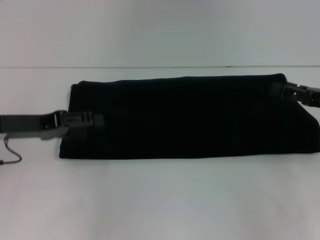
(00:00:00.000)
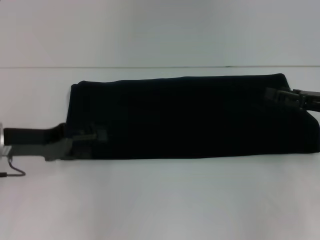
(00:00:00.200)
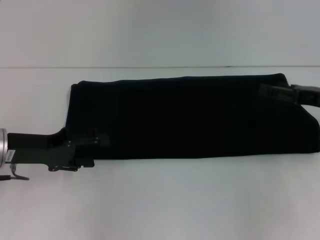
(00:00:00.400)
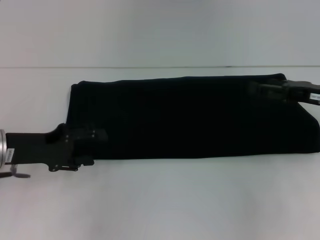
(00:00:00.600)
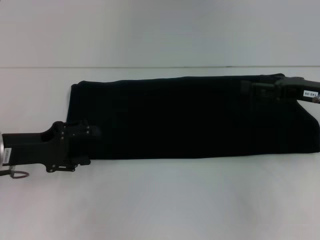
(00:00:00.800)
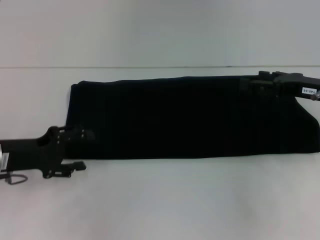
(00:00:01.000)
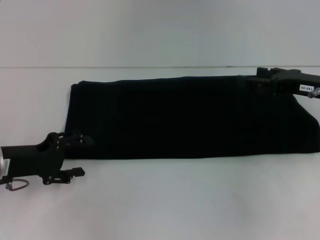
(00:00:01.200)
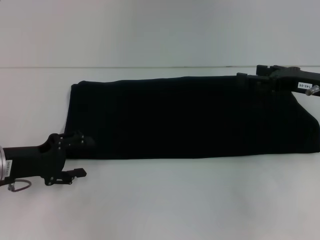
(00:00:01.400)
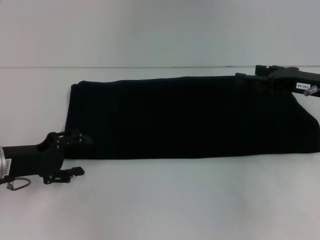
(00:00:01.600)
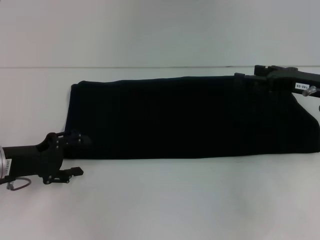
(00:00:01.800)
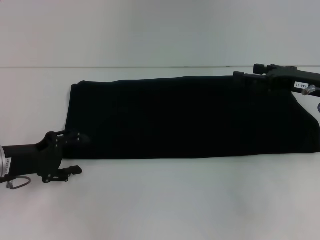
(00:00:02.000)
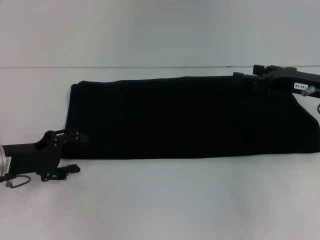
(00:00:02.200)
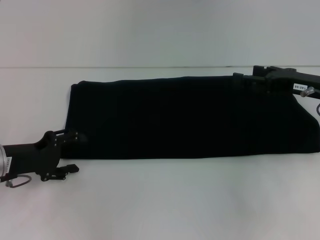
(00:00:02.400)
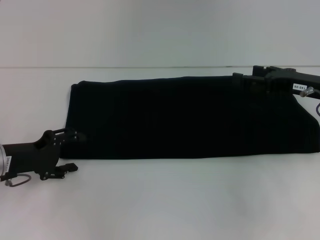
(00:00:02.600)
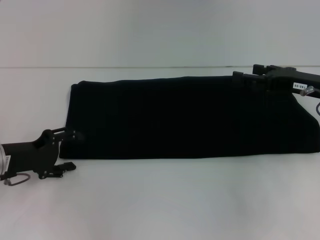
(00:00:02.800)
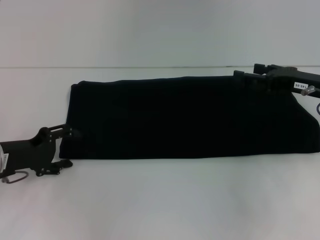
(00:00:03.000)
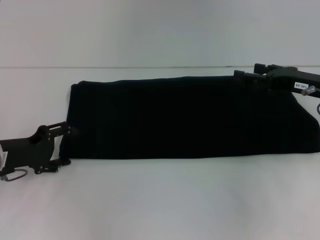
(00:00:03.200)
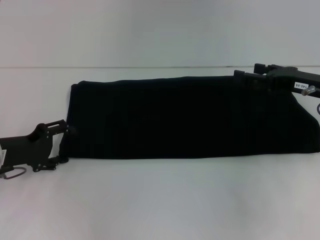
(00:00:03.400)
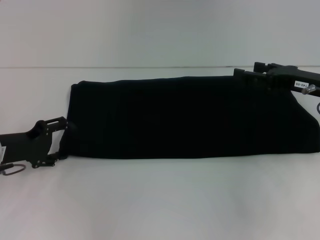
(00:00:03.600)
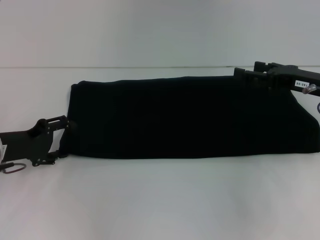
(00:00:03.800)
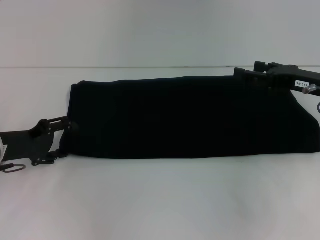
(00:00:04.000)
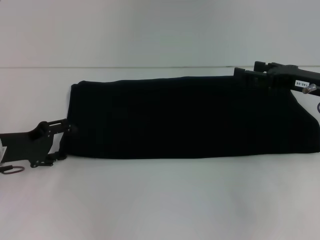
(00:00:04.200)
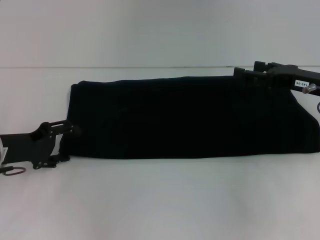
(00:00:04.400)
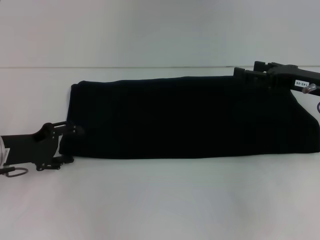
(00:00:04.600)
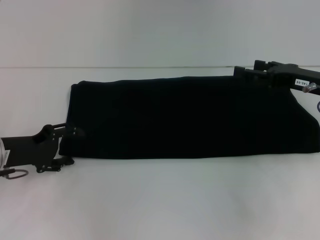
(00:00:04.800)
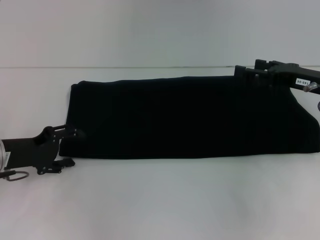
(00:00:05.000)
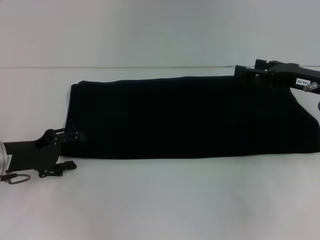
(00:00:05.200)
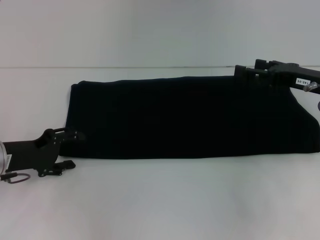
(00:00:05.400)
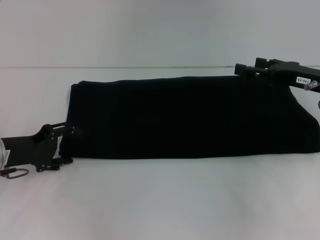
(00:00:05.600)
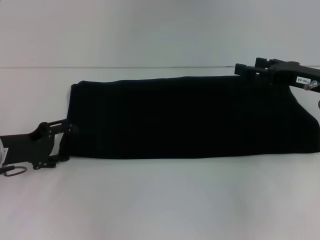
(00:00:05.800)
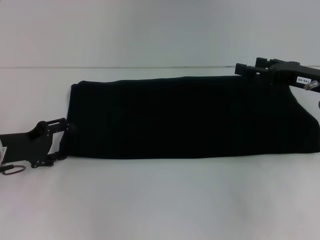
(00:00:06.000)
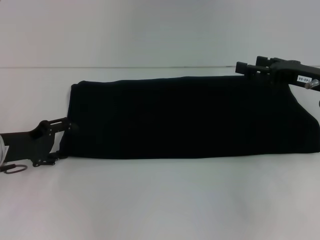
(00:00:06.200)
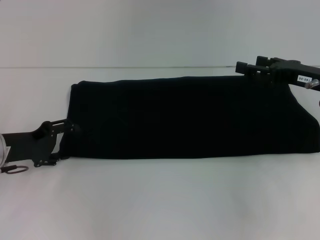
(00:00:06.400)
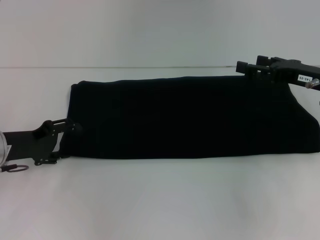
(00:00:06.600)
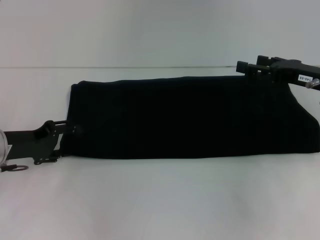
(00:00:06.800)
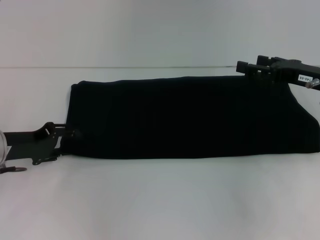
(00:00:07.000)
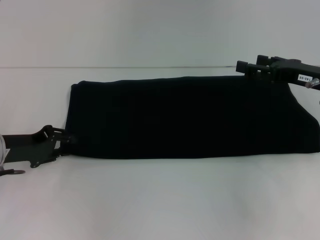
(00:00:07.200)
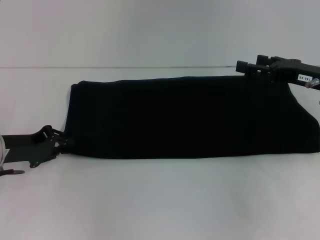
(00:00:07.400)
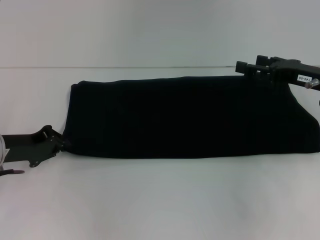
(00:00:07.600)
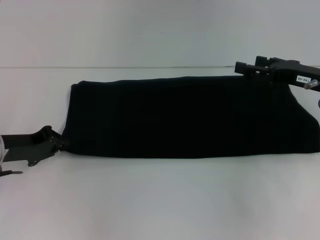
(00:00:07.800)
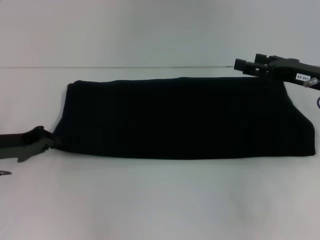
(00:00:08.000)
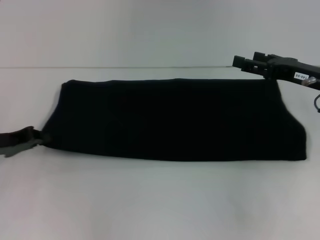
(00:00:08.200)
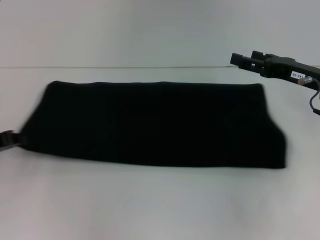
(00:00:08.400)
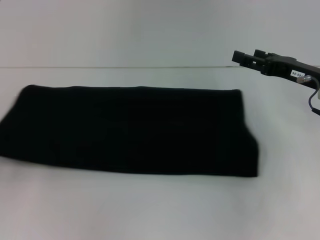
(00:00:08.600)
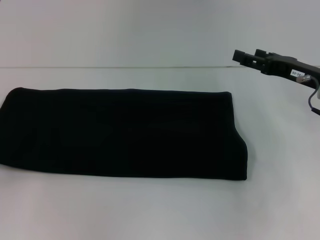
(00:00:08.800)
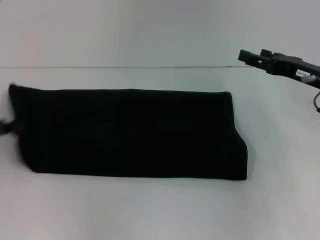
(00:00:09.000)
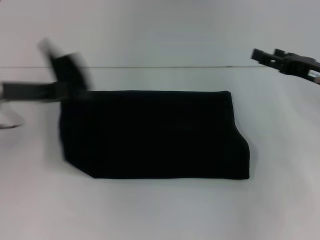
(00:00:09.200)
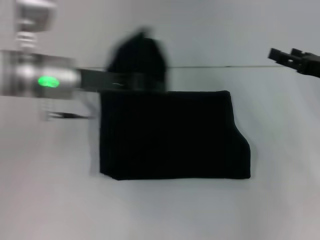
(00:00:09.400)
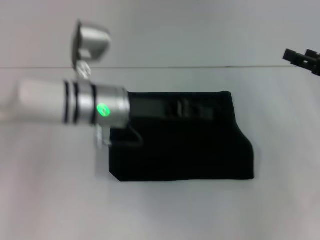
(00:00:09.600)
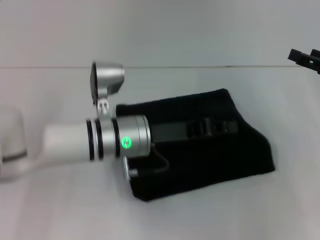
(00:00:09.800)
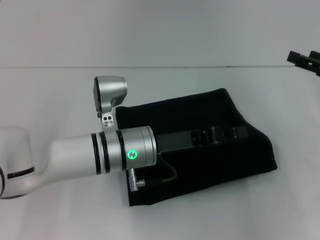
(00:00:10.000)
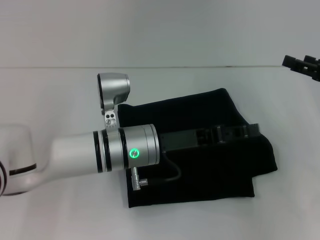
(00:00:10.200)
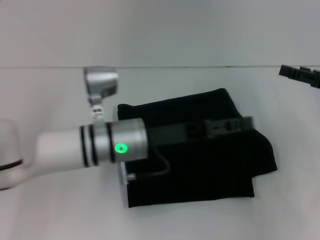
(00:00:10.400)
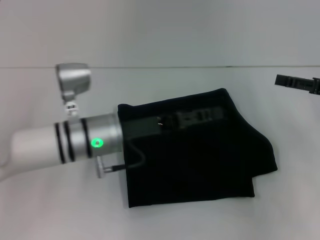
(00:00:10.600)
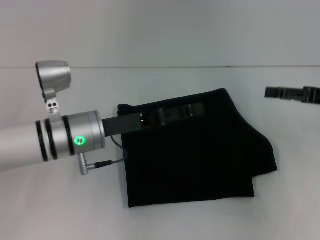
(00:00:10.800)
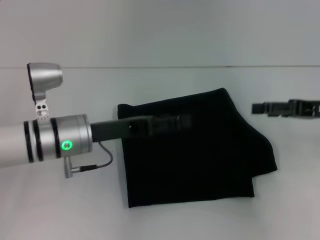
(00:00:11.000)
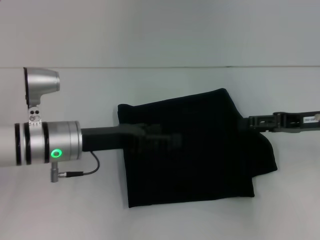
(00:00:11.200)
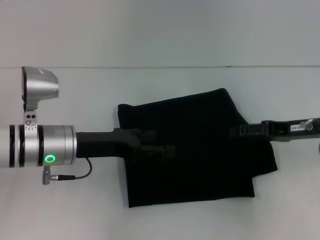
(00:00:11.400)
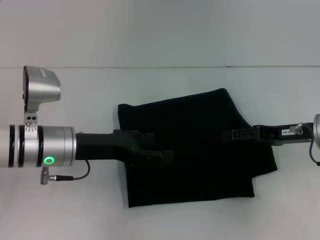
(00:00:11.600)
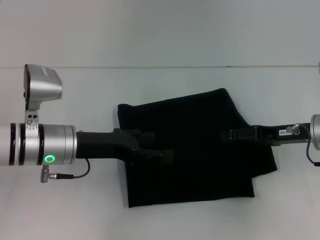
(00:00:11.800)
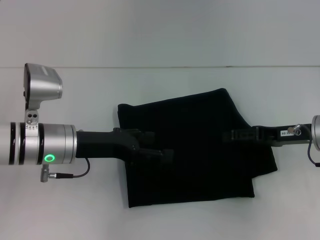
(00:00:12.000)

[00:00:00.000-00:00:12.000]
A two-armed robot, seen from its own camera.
Step, 00:00:00.000 to 00:00:10.600: Fold the clothes with your left hand.
00:00:00.000 to 00:00:01.600: The right gripper is displaced to the left by about 5 cm. The left gripper shifts about 5 cm downward.
00:00:01.600 to 00:00:04.400: There are only small adjustments of the grippers.
00:00:04.400 to 00:00:06.000: Neither gripper changes place.
00:00:06.000 to 00:00:07.600: The left gripper closes.
00:00:07.600 to 00:00:09.000: The left gripper heads to the left and upward, covering roughly 10 cm.
00:00:09.000 to 00:00:10.400: The right gripper travels to the right by roughly 5 cm, while the left gripper shifts roughly 30 cm to the right, and opens up.
00:00:10.400 to 00:00:12.000: Both grippers move to the left, about 10 cm. The left gripper opens its fingers.

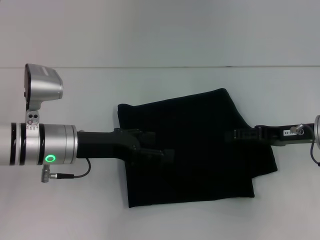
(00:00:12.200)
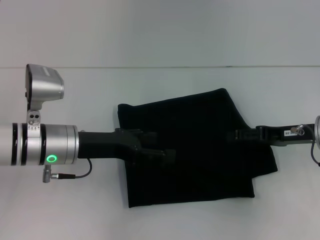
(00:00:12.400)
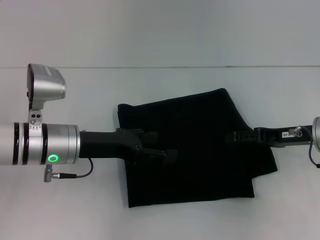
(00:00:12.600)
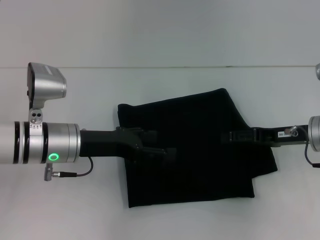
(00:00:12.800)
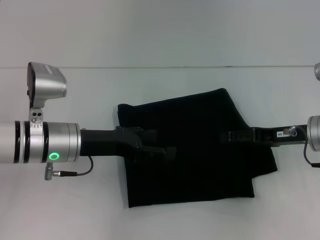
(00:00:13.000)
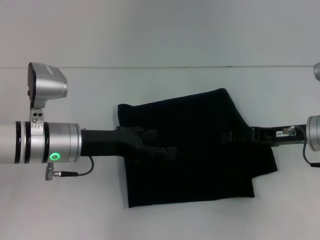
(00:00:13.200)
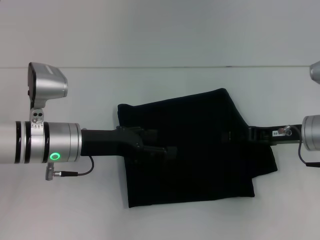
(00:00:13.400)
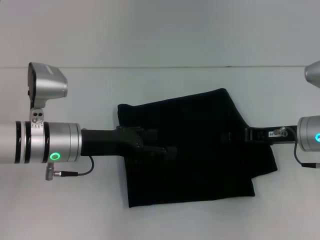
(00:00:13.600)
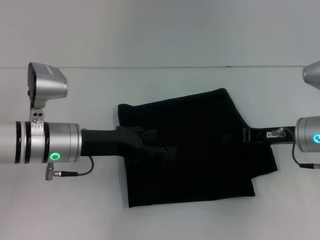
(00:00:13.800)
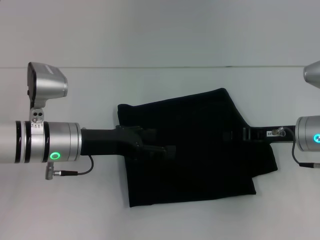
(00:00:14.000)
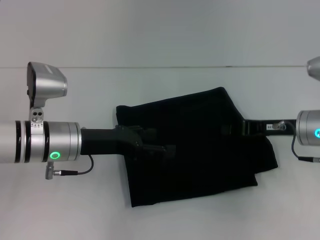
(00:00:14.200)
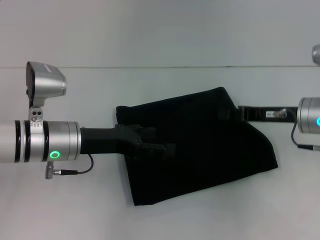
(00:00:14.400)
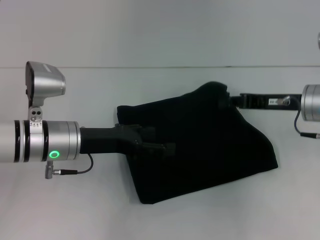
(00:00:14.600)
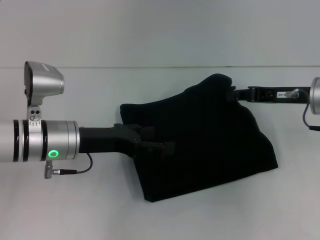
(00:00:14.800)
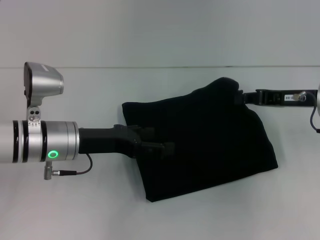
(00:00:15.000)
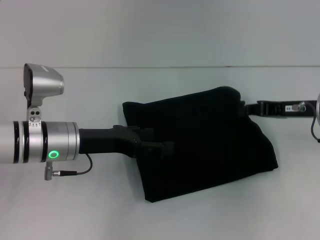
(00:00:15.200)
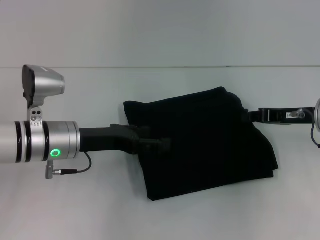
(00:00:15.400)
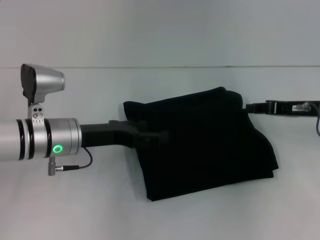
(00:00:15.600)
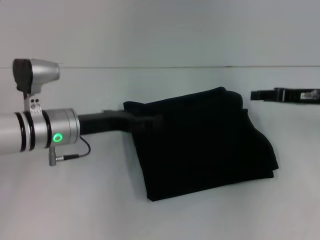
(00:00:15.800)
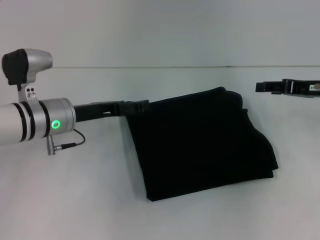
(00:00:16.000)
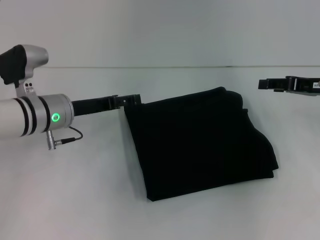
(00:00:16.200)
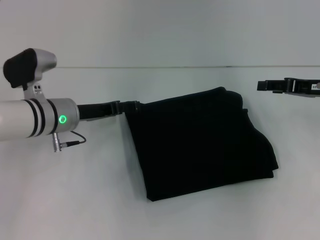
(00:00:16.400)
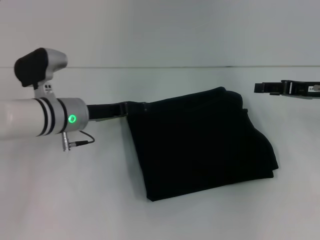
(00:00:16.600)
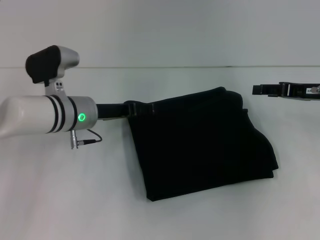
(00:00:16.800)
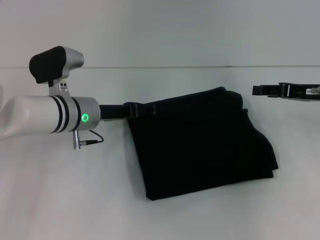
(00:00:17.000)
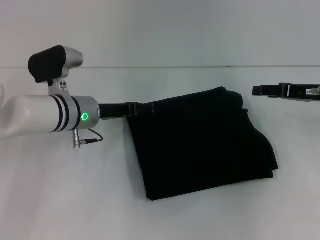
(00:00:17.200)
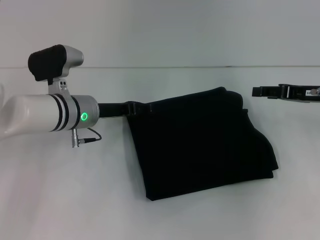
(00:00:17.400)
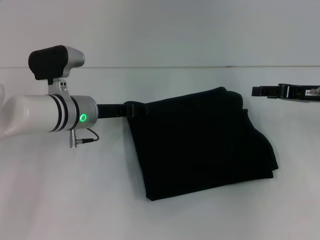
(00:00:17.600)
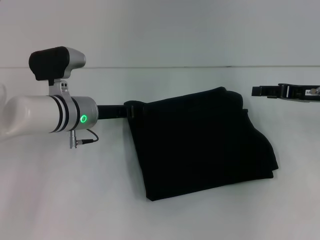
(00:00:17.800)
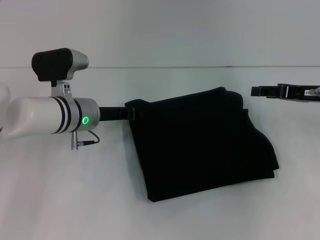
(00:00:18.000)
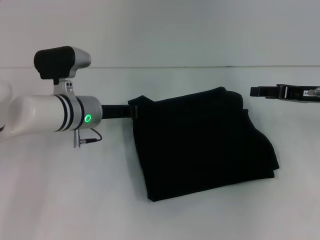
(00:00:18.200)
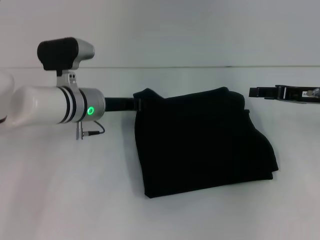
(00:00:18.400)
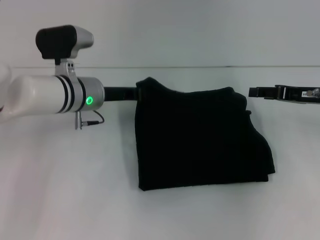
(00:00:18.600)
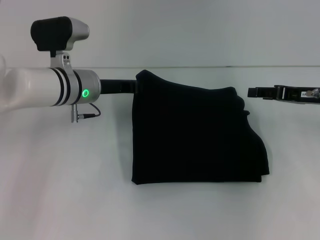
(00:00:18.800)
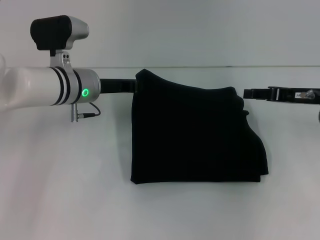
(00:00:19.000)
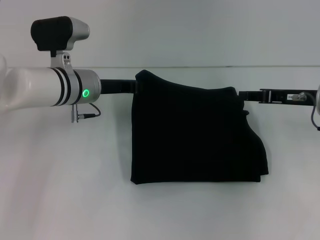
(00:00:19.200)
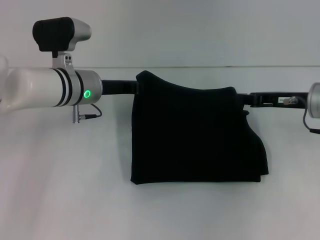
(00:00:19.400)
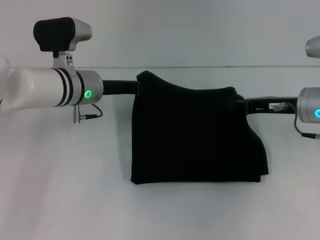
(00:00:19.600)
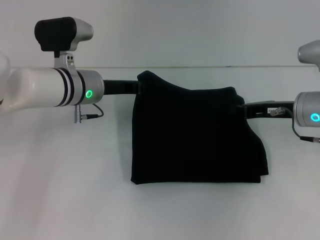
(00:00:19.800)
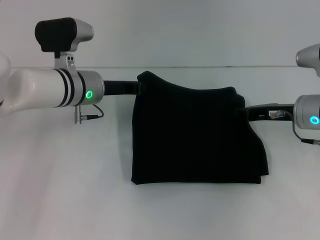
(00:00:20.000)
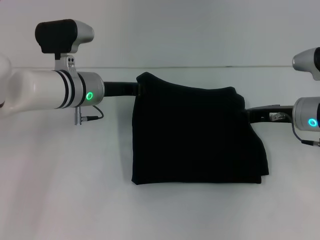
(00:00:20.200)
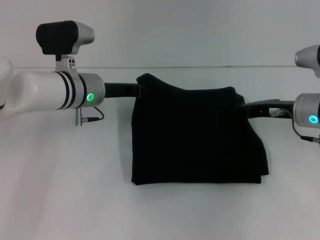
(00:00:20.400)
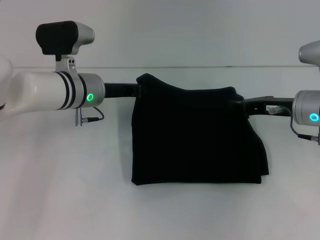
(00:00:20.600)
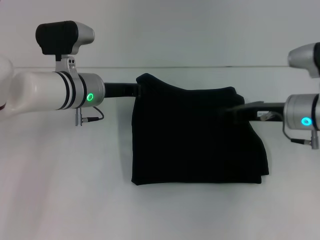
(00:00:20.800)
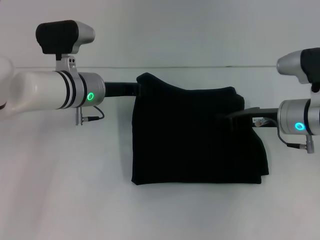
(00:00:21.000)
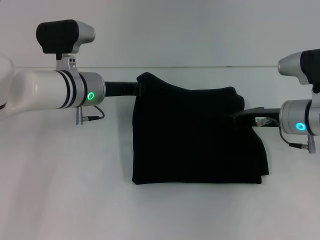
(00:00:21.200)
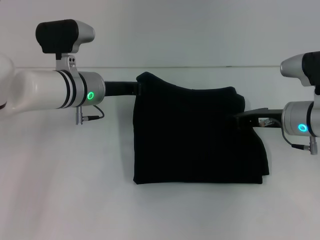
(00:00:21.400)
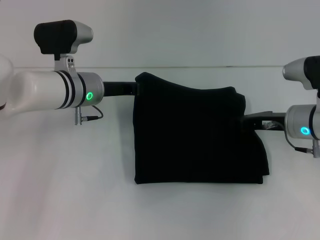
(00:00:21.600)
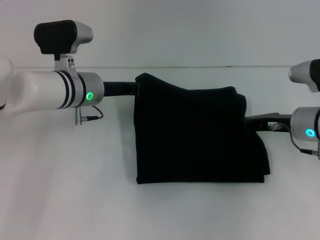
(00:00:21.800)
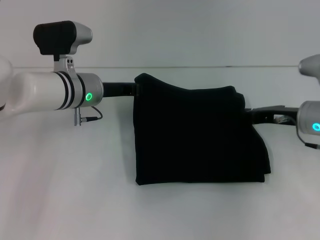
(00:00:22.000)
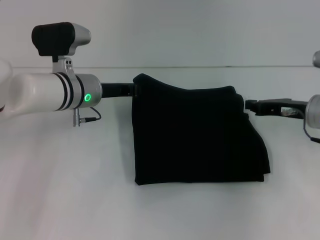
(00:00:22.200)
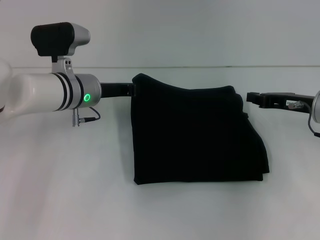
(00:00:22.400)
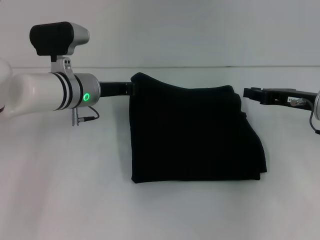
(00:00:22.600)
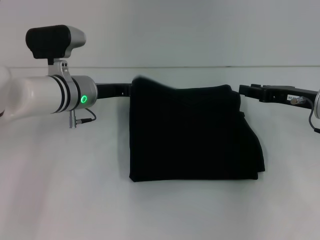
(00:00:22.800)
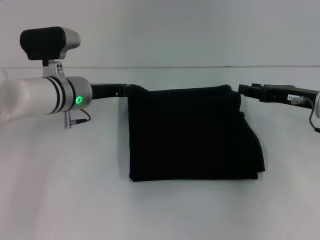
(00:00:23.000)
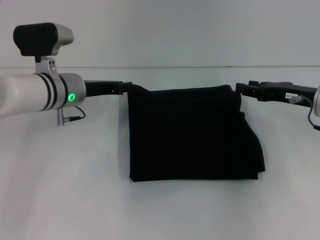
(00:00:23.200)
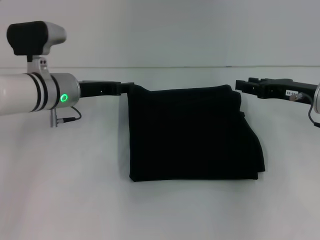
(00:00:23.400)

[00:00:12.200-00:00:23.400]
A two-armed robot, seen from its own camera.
00:00:12.200 to 00:00:13.800: The right gripper closes up.
00:00:13.800 to 00:00:15.400: The grippers move only a little.
00:00:15.400 to 00:00:17.000: The right gripper opens its fingers. Meanwhile the left gripper moves forward, roughly 5 cm.
00:00:17.000 to 00:00:18.600: The left gripper closes.
00:00:18.600 to 00:00:20.200: The right gripper changes place by about 5 cm, and closes.
00:00:20.200 to 00:00:21.800: The grippers stay close to where they were, moving slightly.
00:00:21.800 to 00:00:23.400: The right gripper opens its fingers.
